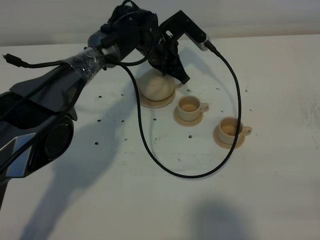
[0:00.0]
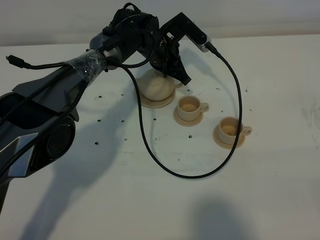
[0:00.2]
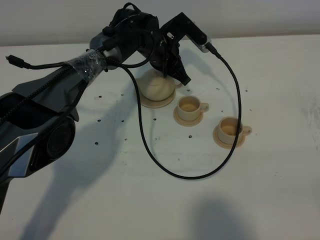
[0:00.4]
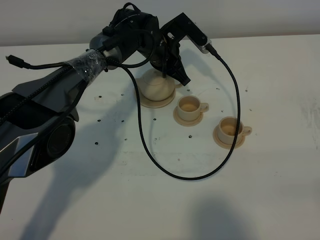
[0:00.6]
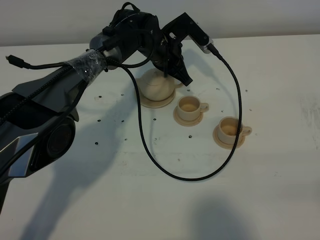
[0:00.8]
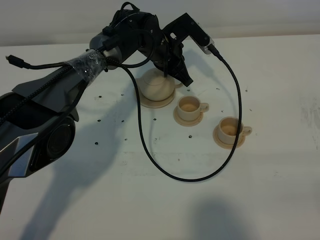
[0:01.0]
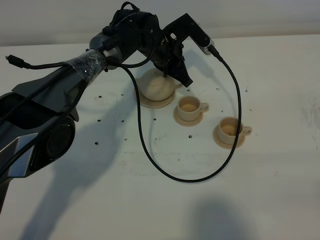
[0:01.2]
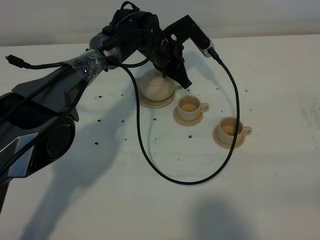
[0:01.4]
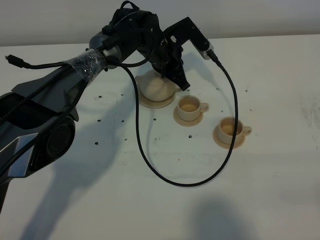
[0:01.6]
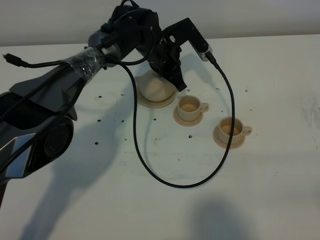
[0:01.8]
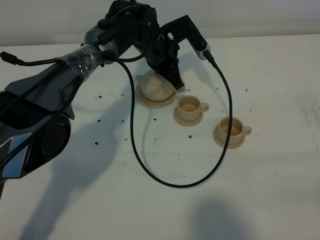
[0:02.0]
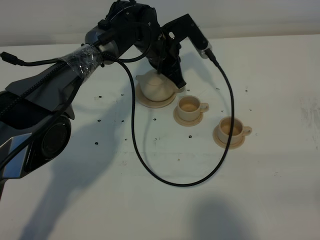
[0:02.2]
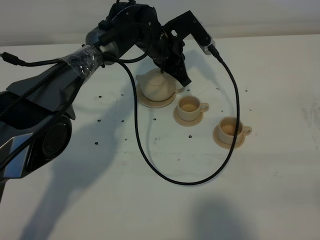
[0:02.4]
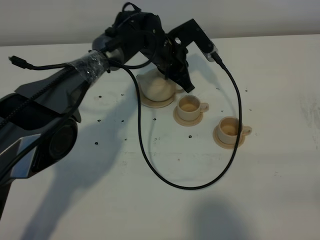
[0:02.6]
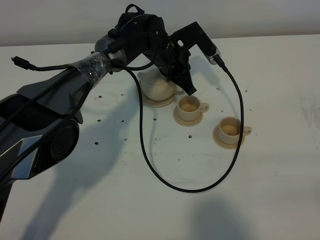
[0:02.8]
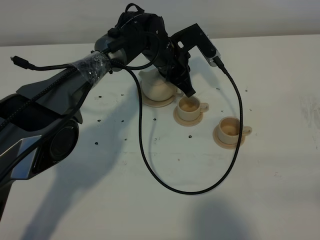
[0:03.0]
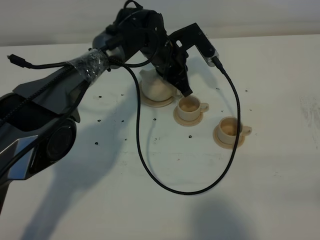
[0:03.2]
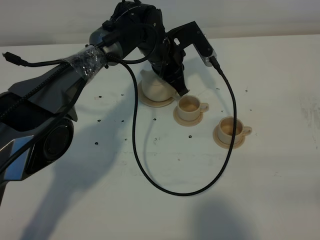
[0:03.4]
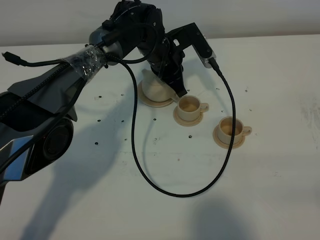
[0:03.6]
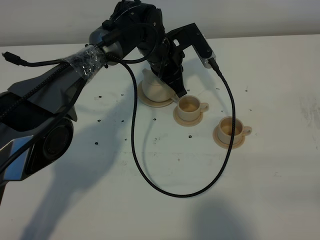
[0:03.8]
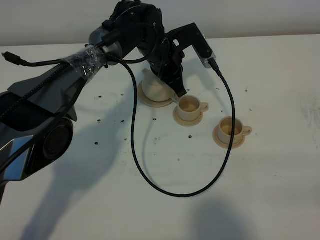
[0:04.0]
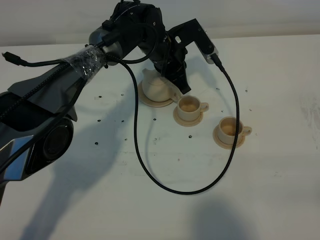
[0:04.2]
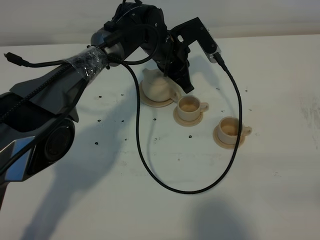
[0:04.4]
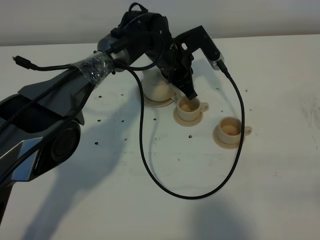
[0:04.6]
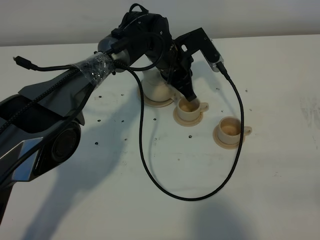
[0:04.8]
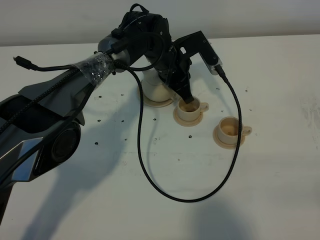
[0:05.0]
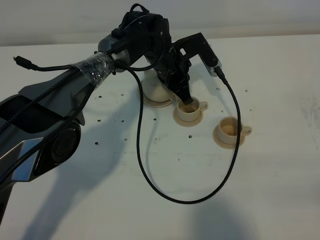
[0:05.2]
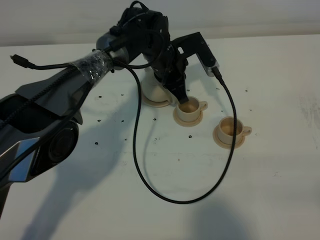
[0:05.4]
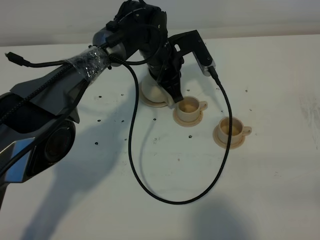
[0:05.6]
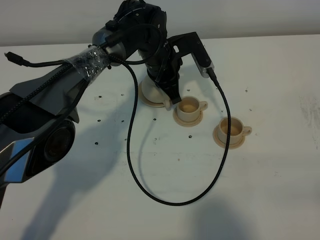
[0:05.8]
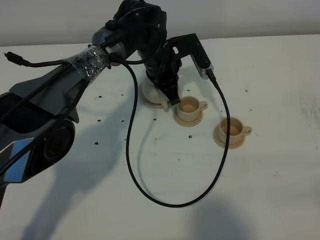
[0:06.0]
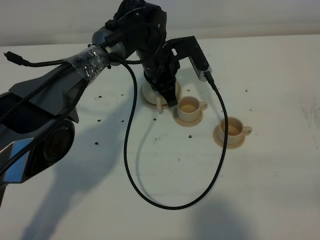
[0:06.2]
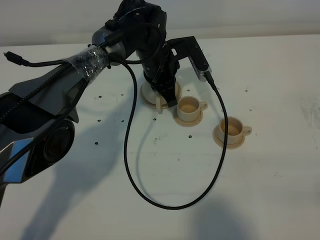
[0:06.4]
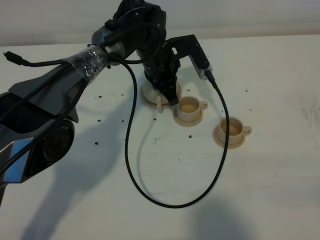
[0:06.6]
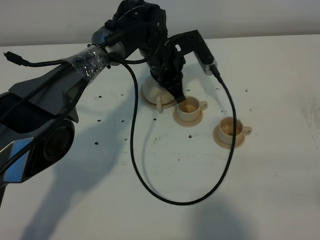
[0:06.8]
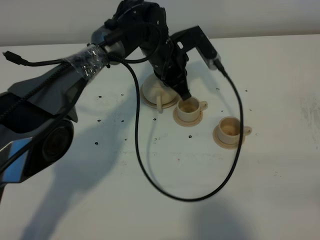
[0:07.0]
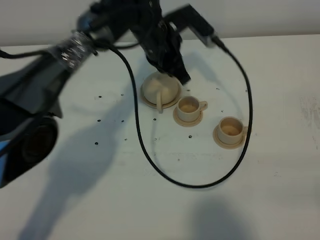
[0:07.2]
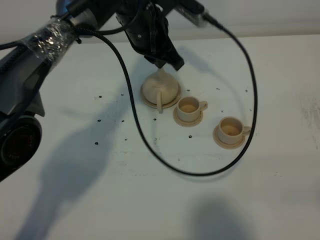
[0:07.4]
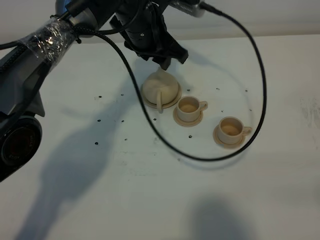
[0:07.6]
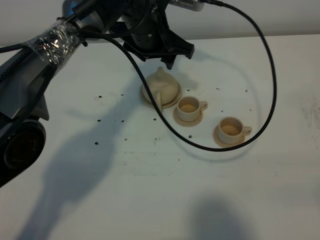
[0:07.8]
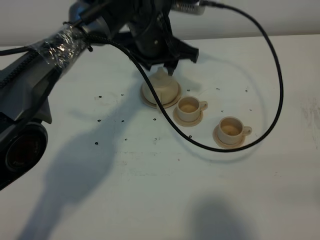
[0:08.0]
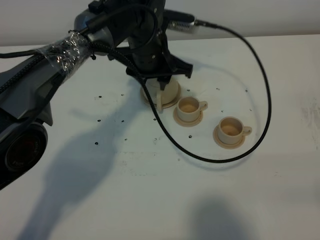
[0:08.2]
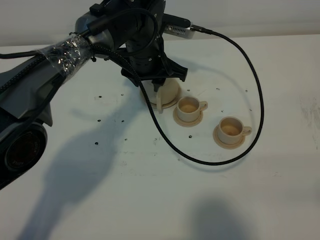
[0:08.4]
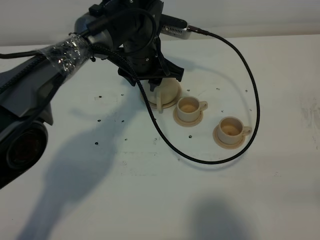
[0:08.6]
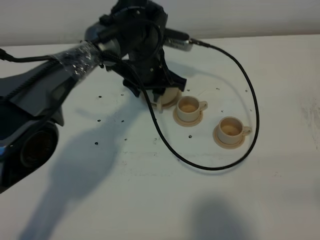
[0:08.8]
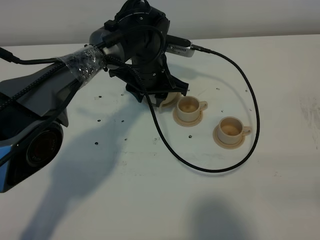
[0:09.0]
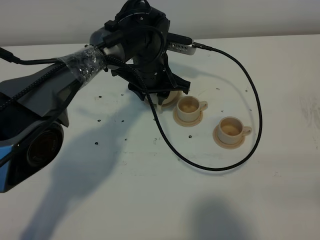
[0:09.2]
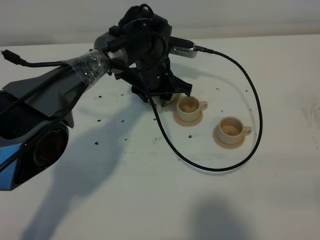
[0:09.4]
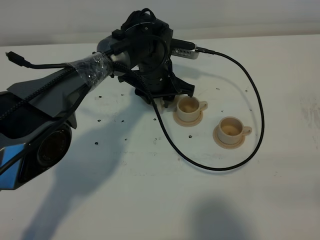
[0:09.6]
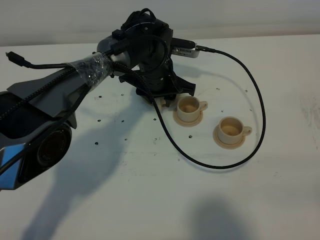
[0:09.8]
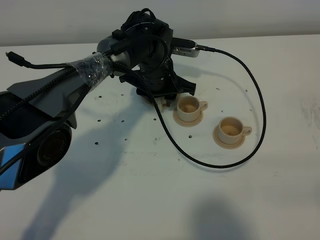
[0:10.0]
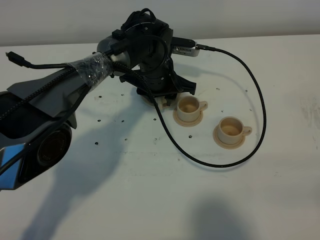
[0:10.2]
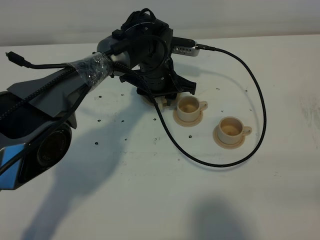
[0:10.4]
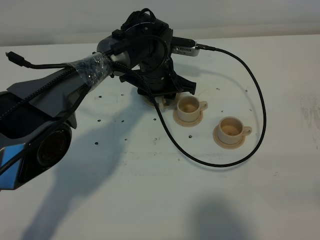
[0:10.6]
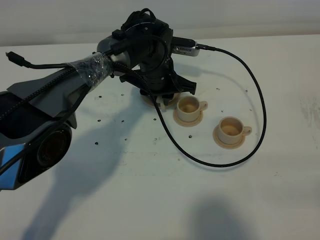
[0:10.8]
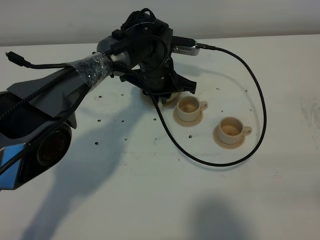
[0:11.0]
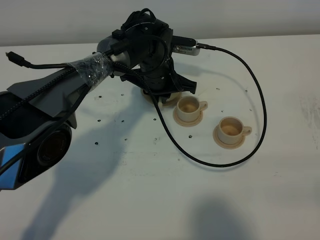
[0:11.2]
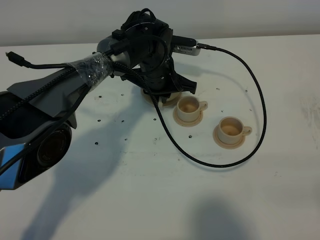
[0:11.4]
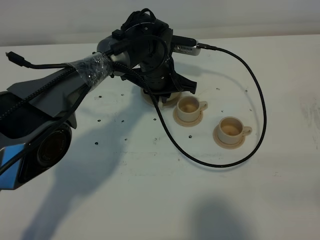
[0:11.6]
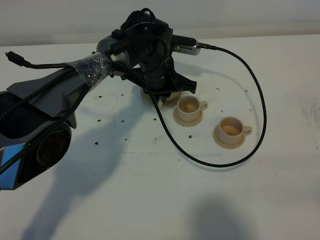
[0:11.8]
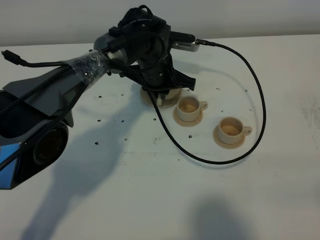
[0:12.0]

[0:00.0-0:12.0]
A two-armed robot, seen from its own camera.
Task of the whole recording: grasp the brown teapot and pour the tea into the two brown teacups one by one, put the brown teapot back in its original place.
0:00.0 to 0:01.6: There are only small adjustments of the grippers.
0:01.6 to 0:06.0: The grippers move only a little.
0:06.0 to 0:07.6: The left gripper is displaced upward by some 10 cm, and opens up.
0:07.6 to 0:09.0: The left gripper travels downward by some 10 cm.
0:09.0 to 0:10.4: The grippers stay close to where they were, moving slightly.
0:10.4 to 0:12.0: The left gripper closes up.

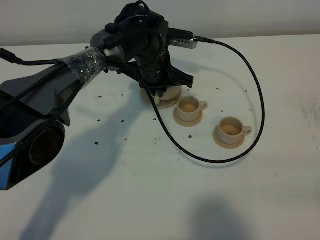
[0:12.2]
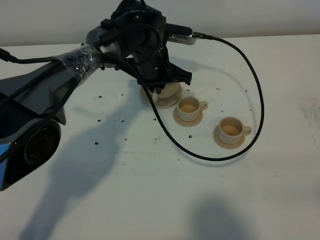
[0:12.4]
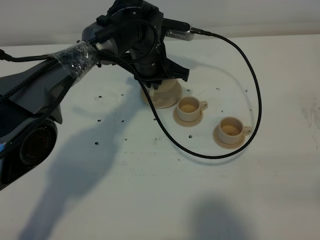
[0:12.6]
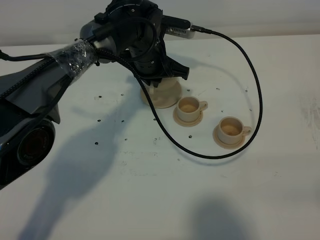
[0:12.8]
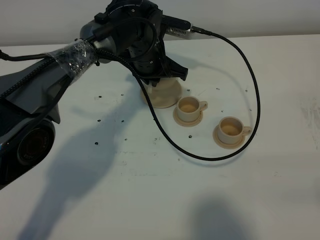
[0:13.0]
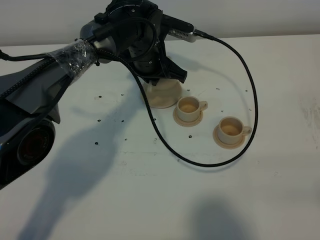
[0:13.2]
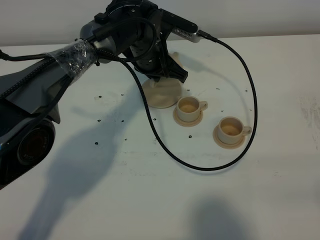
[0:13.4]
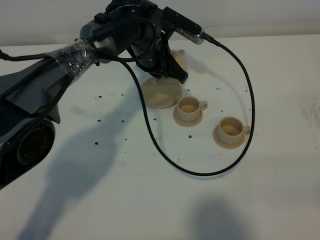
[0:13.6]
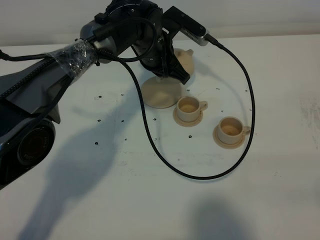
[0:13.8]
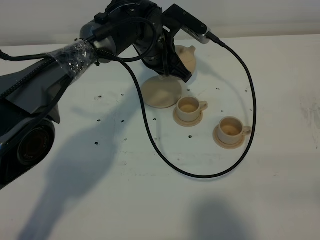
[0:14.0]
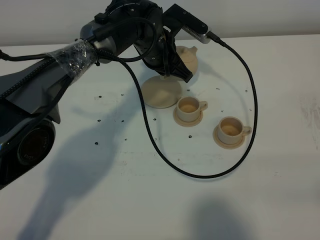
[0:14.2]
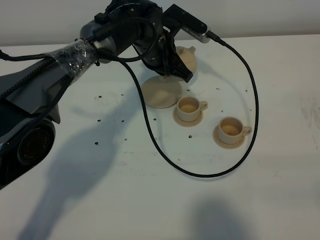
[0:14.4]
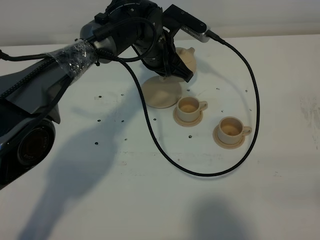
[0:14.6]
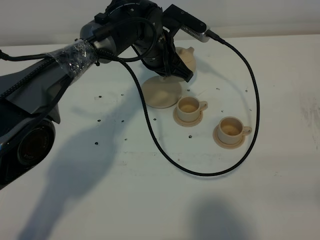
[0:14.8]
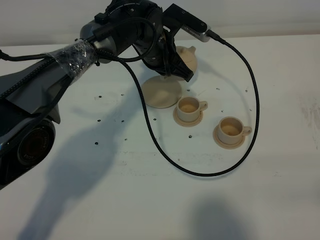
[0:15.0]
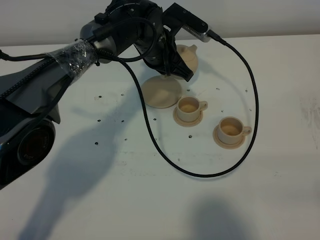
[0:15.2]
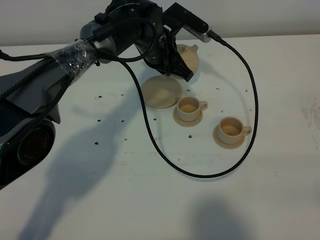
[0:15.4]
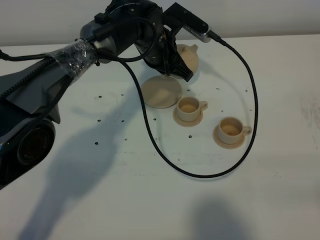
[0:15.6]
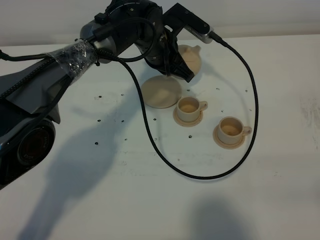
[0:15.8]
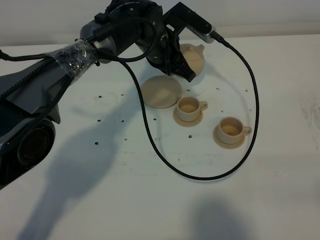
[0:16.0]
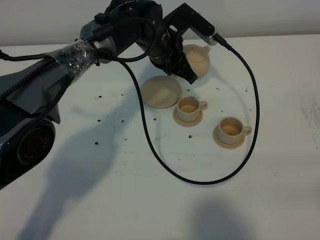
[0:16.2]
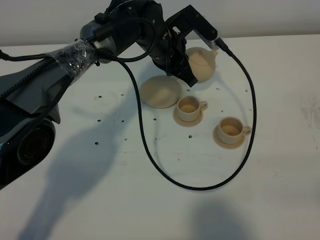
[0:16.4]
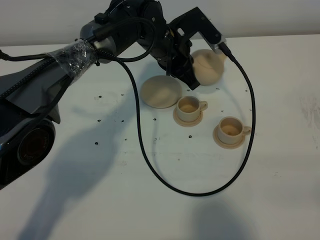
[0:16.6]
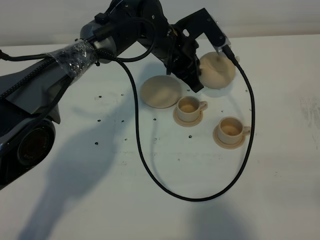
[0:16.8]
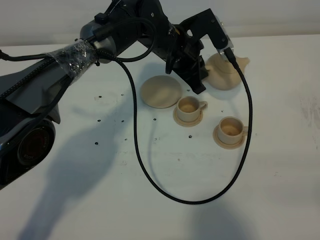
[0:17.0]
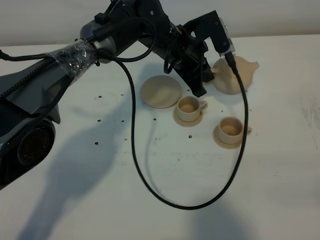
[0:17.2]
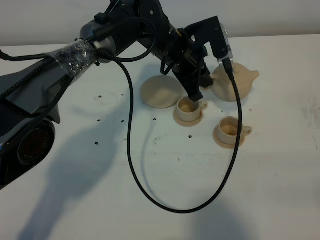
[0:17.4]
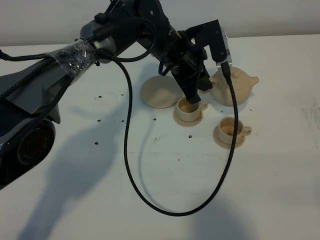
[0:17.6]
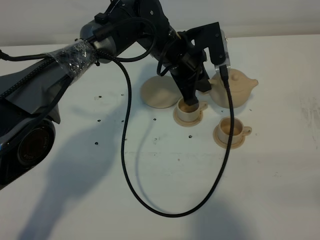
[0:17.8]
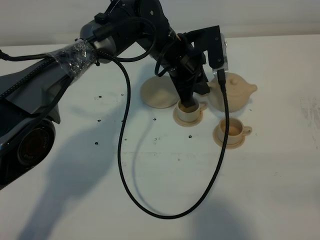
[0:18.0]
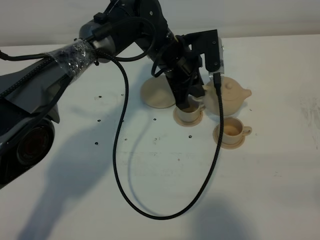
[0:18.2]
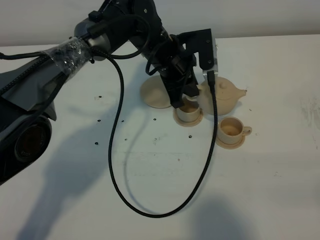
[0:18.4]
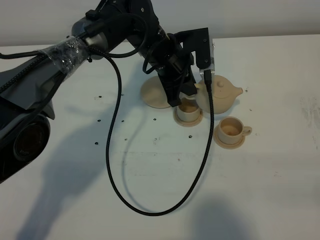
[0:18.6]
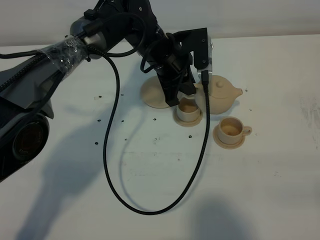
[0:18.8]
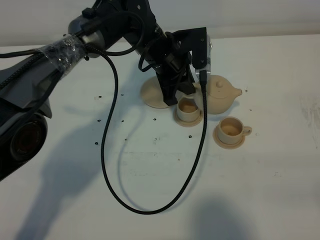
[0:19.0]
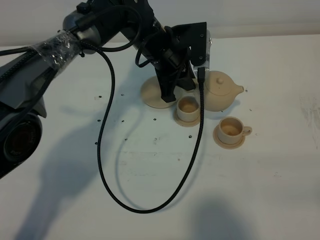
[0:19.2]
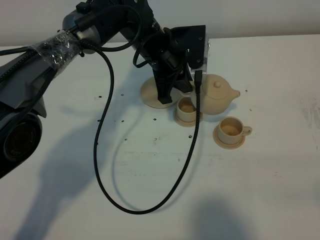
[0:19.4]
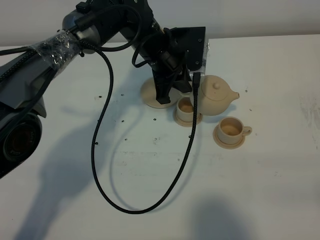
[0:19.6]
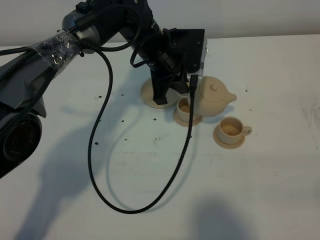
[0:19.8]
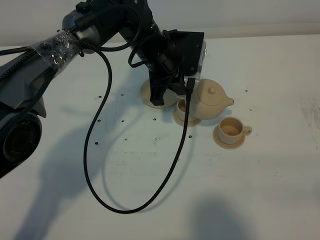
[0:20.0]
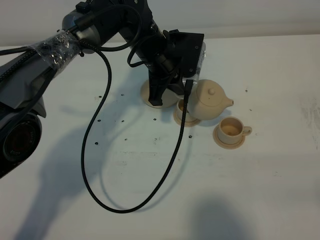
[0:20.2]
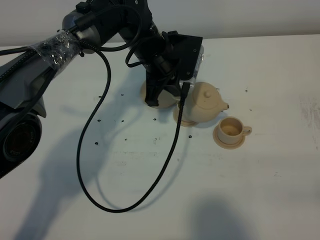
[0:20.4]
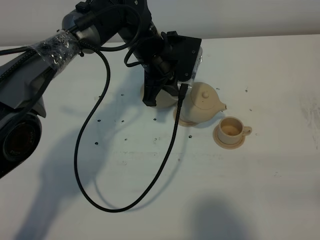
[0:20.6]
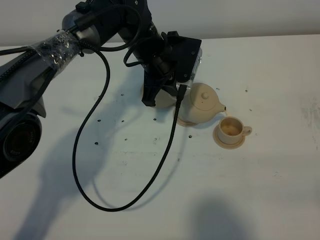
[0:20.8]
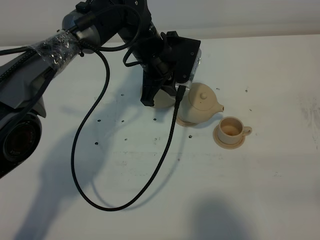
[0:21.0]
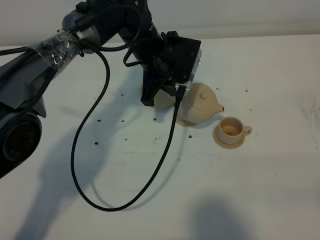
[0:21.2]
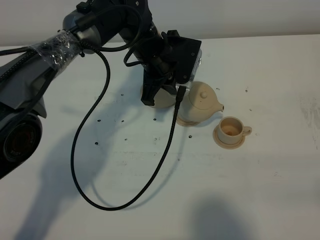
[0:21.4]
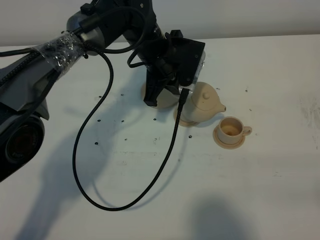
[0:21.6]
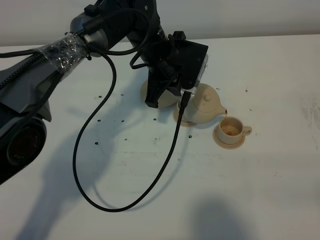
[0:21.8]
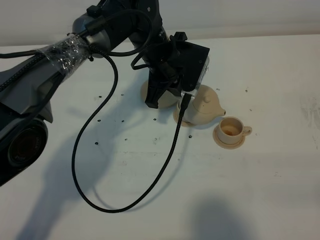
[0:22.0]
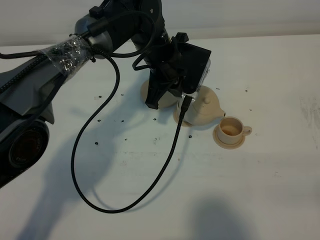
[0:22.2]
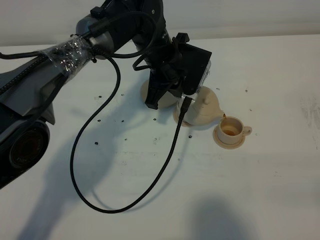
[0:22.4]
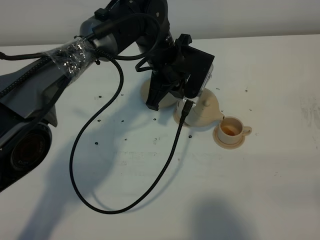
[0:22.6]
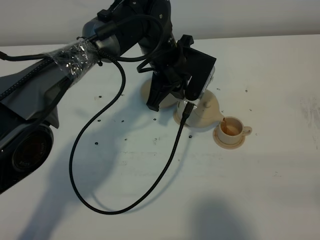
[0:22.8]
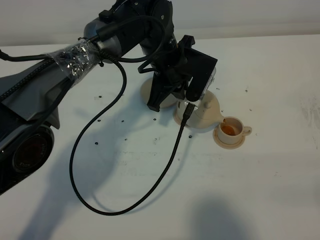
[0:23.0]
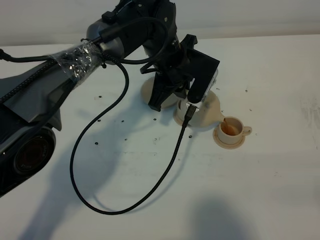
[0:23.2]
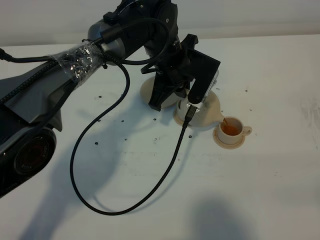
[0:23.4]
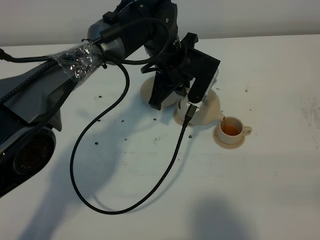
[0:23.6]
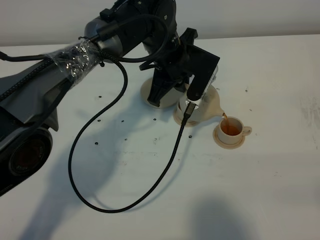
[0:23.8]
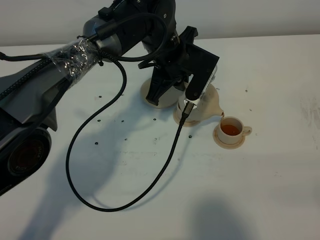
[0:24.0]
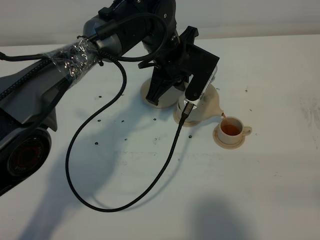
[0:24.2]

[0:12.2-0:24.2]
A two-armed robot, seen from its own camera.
Task of the whole recording: grasp the brown teapot and pour the tea into the two brown teacups one by one, put the brown teapot back in its original place.
0:13.8 to 0:15.2: Both grippers stay put.
0:19.8 to 0:21.2: The grippers move only a little.
0:22.6 to 0:24.2: The grippers move only a little.
